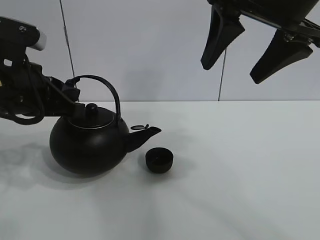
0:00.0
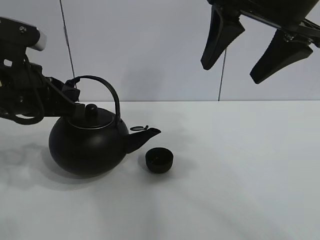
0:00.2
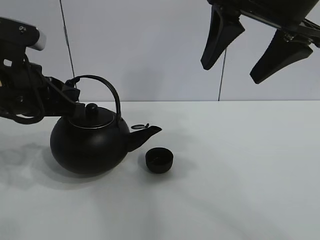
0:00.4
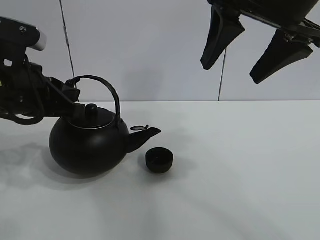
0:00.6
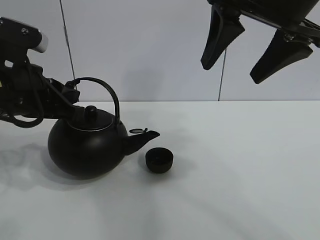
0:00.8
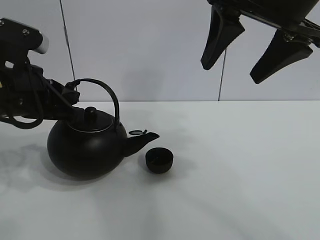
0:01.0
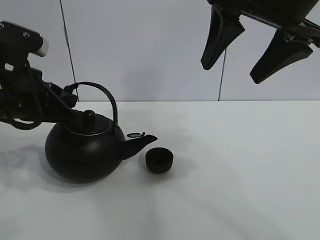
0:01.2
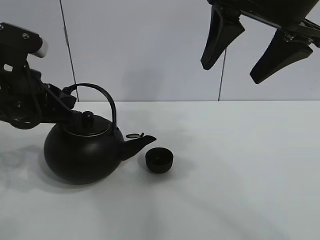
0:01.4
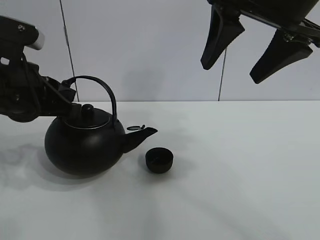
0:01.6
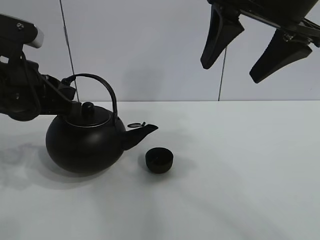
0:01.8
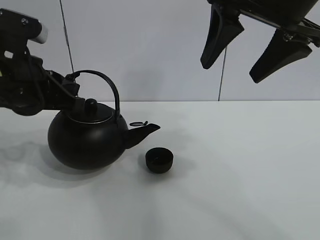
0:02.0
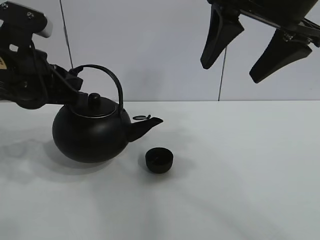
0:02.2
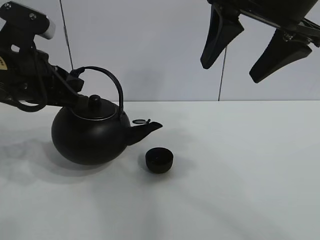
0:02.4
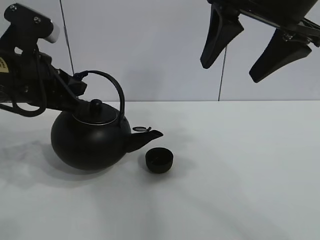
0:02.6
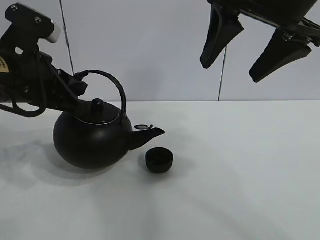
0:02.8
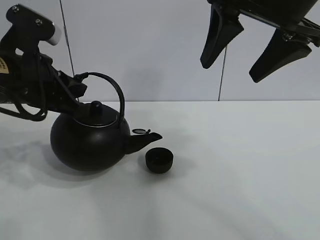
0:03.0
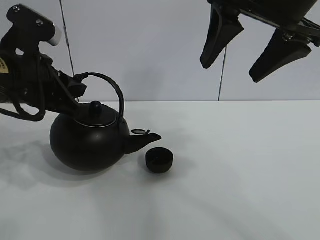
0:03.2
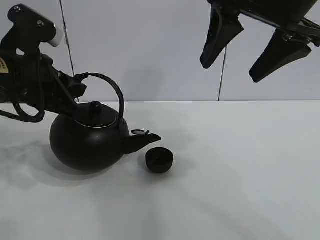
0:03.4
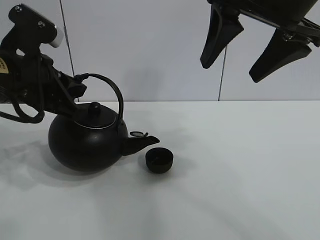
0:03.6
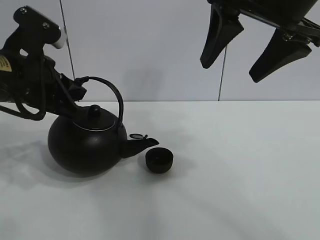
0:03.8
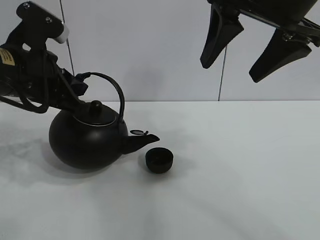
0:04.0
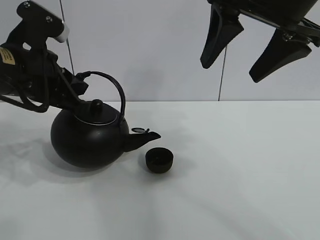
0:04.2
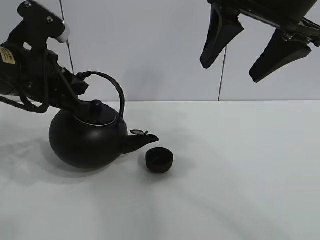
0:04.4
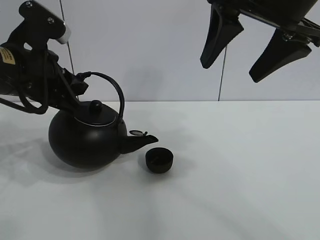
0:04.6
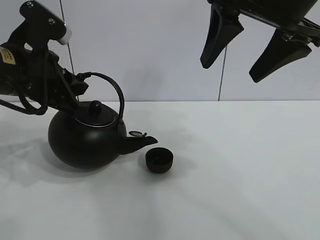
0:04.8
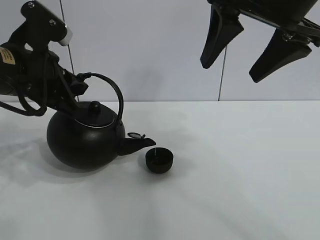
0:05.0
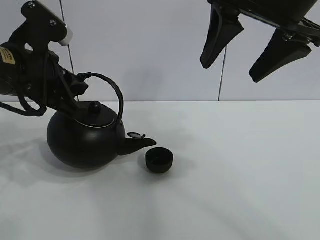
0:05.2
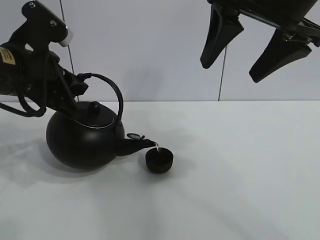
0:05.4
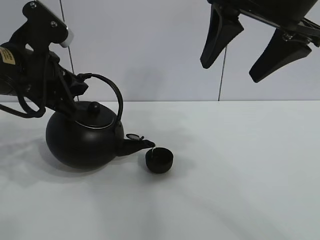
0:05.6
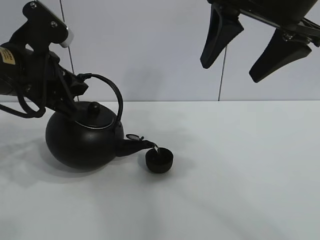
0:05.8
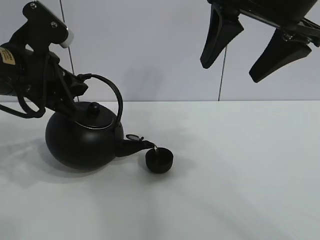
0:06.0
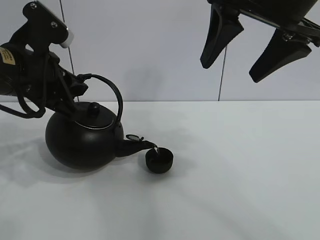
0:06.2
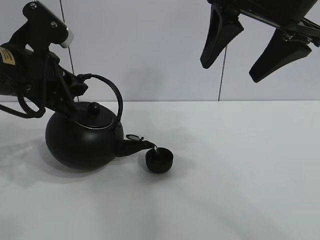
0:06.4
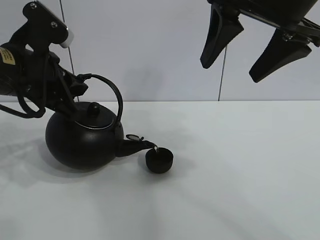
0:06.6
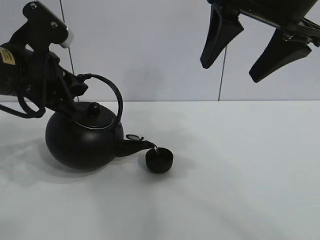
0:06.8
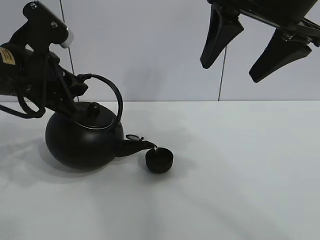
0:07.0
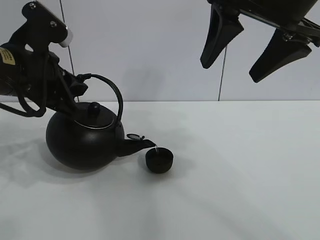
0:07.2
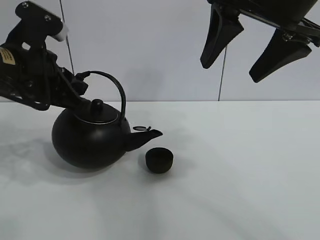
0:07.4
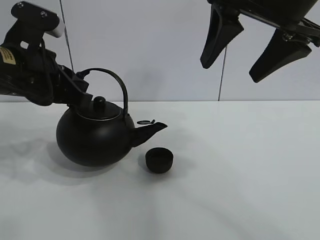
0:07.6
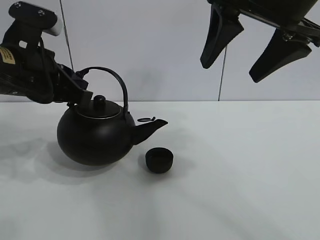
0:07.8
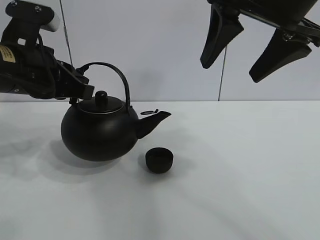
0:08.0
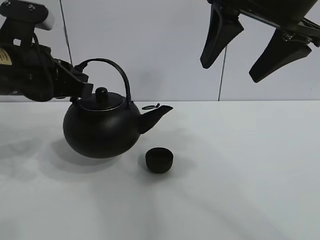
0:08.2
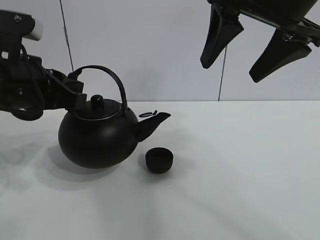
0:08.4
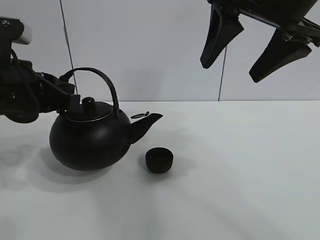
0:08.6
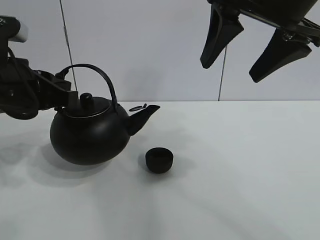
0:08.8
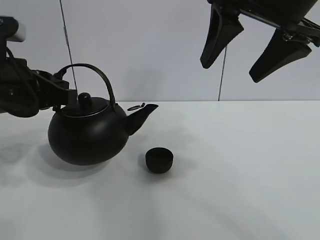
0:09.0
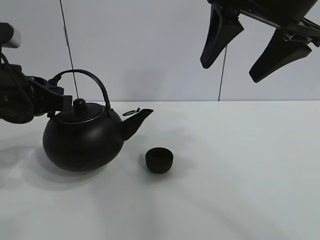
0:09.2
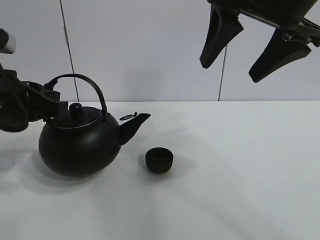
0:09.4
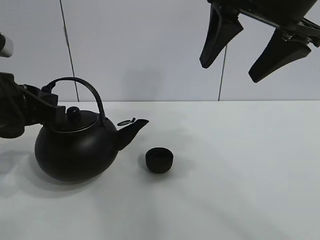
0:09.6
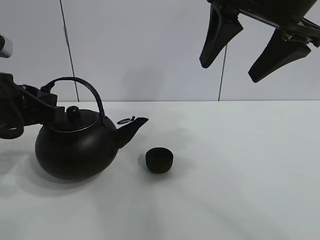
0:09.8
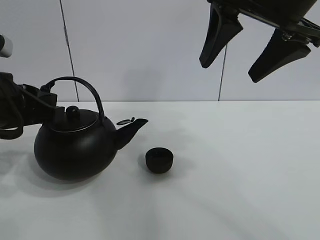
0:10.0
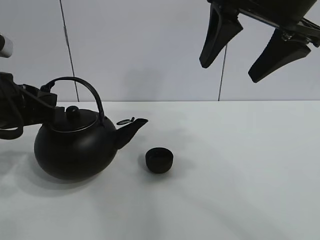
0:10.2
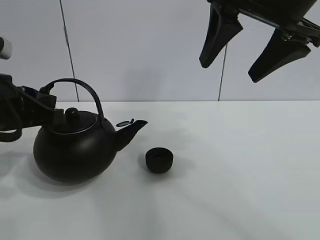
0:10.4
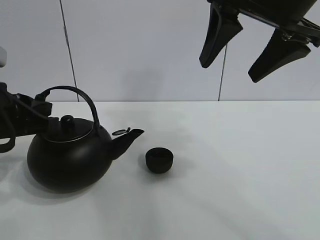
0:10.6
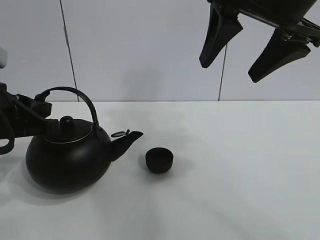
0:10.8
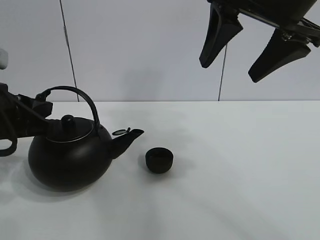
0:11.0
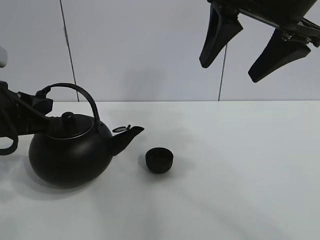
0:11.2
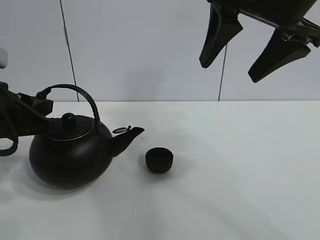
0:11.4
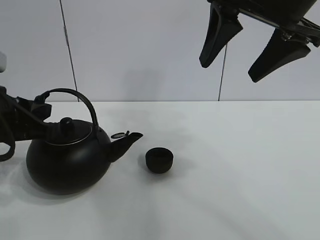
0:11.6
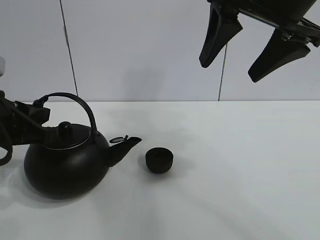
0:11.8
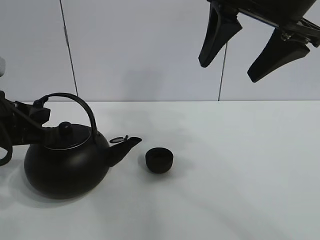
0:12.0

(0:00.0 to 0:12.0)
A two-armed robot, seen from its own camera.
Task of the whole recording: pour tea into the teacup.
Step, 0:00.0 - 0:07.4: Pour tea into the teacup with the left gripper.
0:00.0 - 0:01.6: The two grippers keep their place.
0:01.6 - 0:04.4: The grippers move only a little.
0:04.4 - 0:07.6: The grippers stay close to where they were, moving slightly.
0:07.6 - 0:09.0: The grippers stay close to where they were, moving slightly.
0:09.0 - 0:12.0: The grippers move only a little.

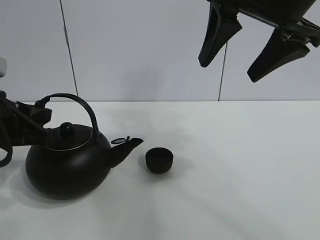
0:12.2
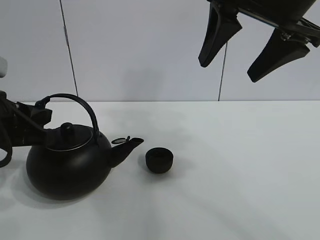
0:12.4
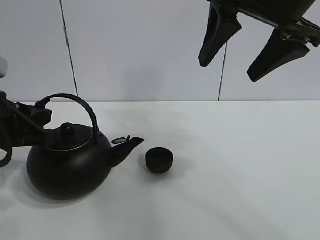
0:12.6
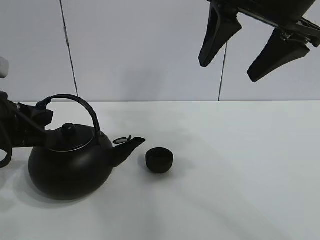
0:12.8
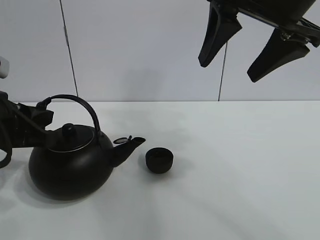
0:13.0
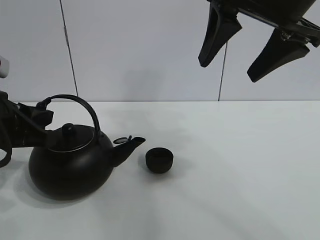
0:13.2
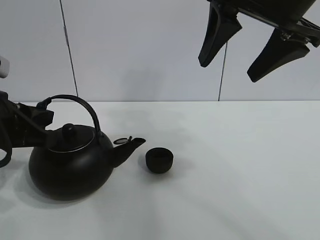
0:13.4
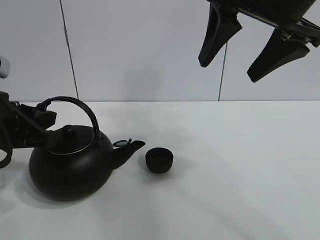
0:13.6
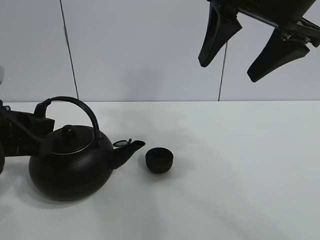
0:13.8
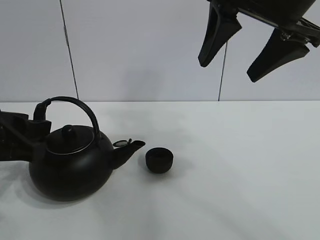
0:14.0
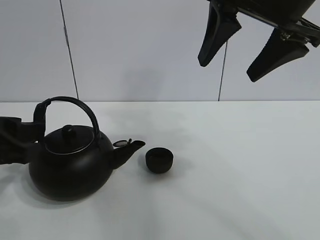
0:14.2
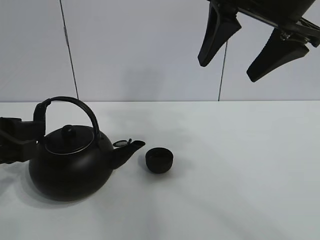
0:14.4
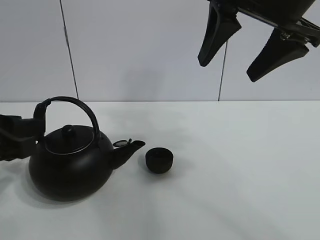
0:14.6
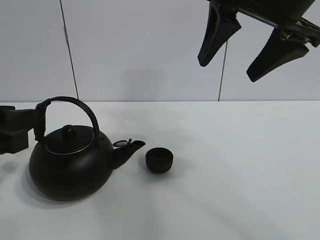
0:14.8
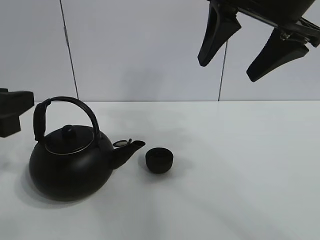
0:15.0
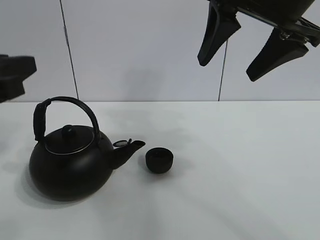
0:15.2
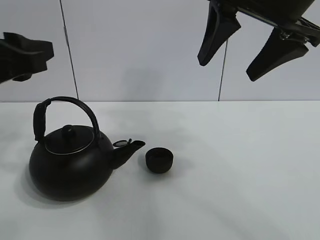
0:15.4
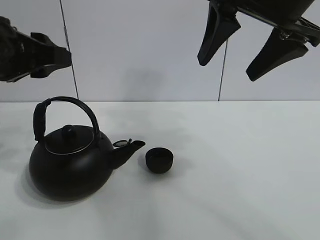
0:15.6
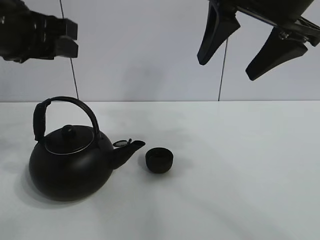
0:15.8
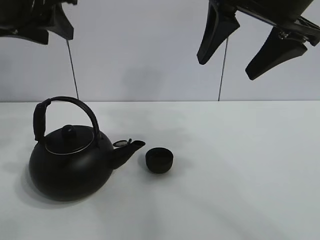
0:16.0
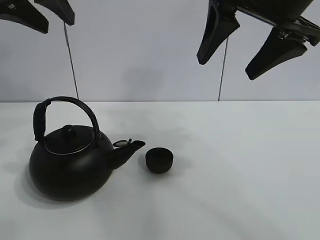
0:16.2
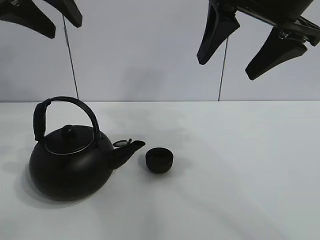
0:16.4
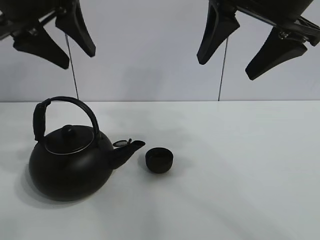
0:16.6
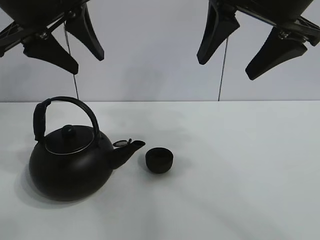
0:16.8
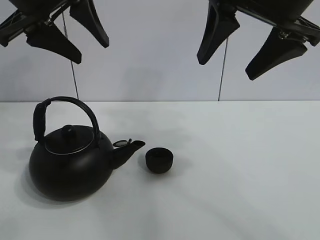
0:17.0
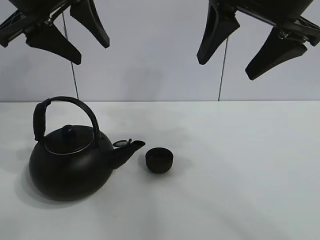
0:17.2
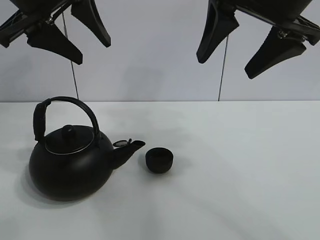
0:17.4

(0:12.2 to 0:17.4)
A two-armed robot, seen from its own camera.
Task of the whole recording: pour tea into the teacup.
0:12.2 - 0:14.0: The left gripper opens.
0:14.0 - 0:15.6: The left gripper moves upward, about 10 cm.
0:15.6 - 0:17.4: The left gripper shifts roughly 10 cm upward and to the right.

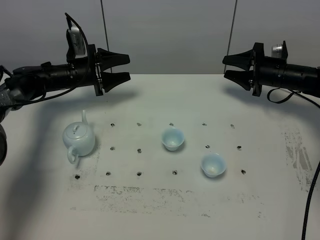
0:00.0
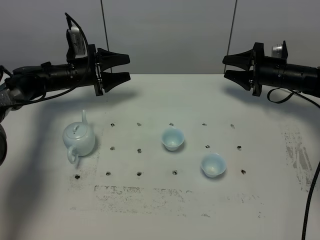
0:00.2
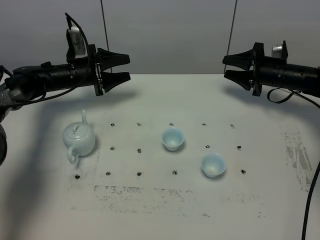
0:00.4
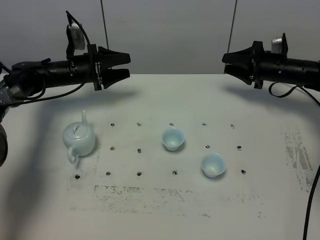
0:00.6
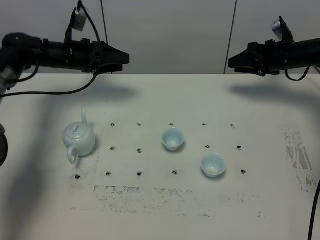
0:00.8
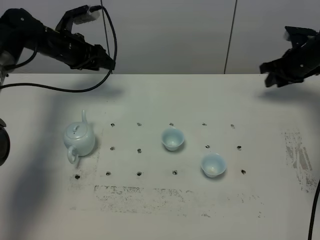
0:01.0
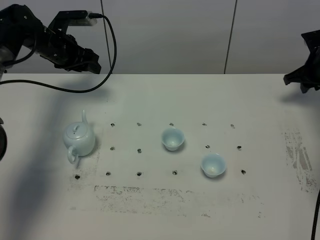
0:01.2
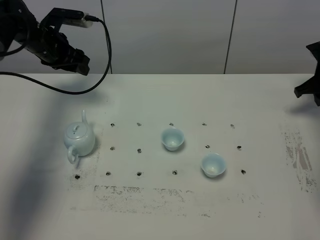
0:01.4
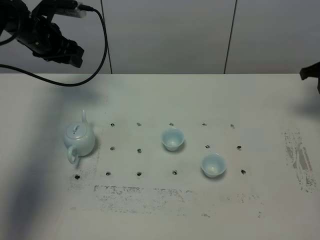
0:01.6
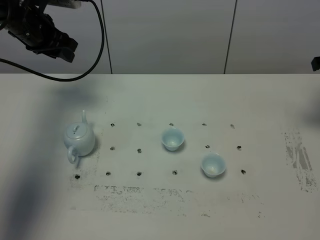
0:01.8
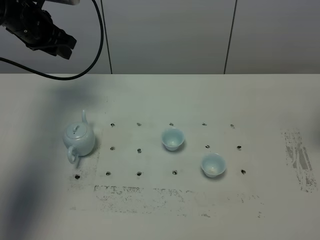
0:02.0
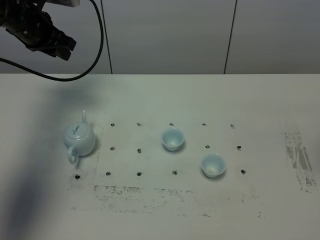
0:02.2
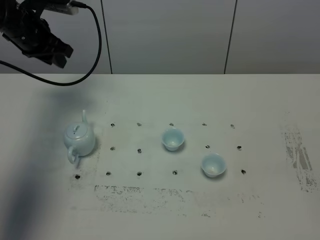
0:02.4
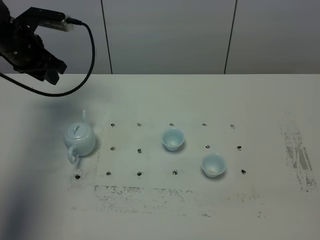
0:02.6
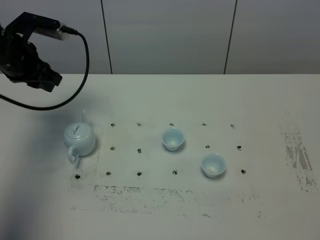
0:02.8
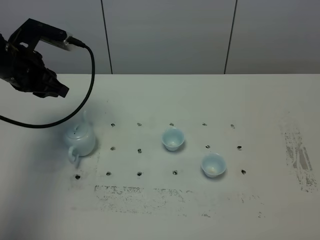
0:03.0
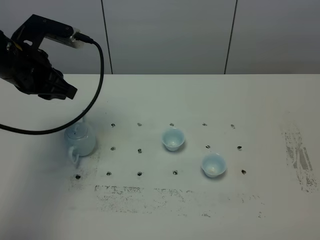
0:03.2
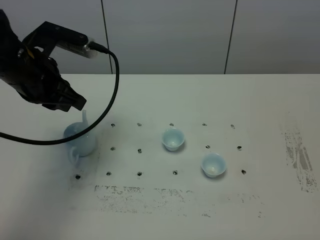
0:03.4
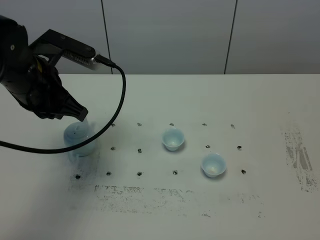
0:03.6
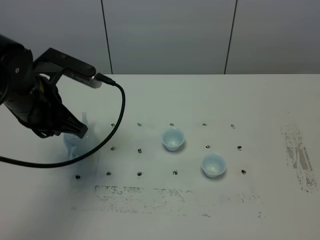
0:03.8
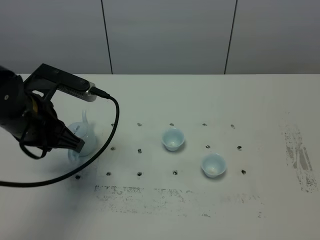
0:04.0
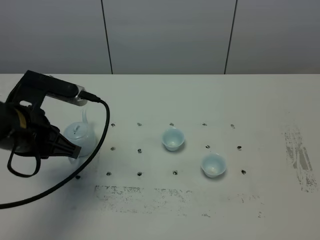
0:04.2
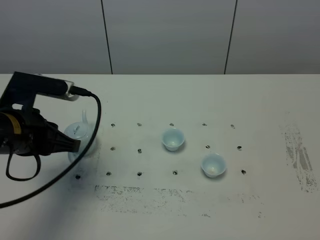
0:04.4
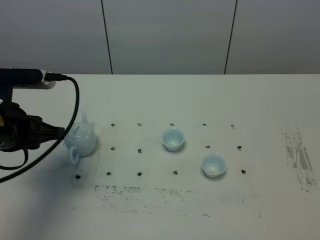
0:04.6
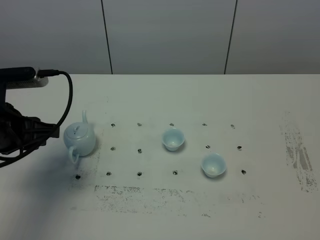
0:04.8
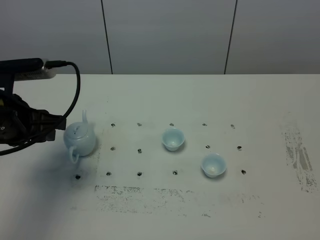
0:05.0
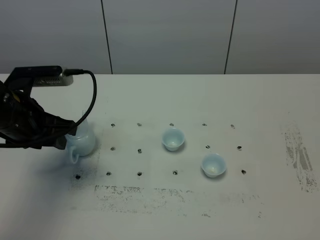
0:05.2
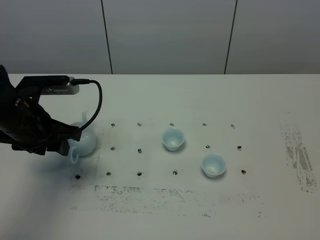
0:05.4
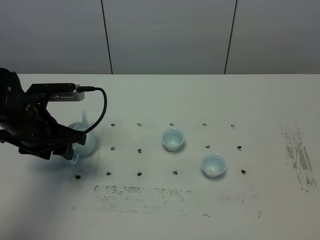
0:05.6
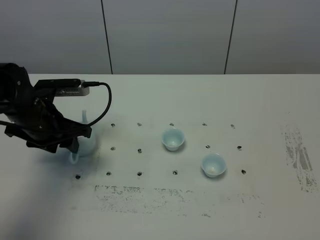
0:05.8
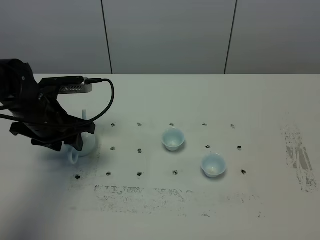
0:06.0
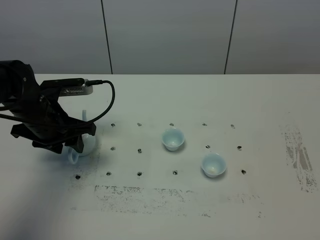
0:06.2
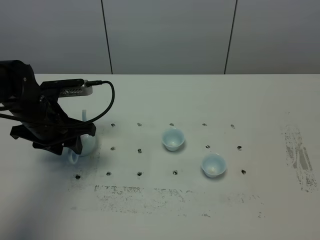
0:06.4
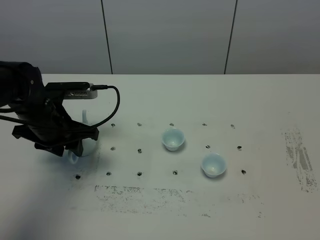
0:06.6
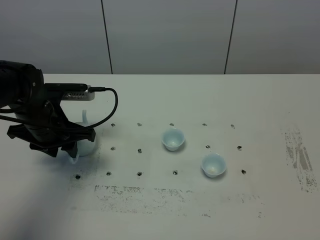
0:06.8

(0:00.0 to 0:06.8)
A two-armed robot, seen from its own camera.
Task of the whole recording: grasp the blue porcelain teapot and pour the tea into the two blue porcelain teacups one by one, put the blue porcelain teapot back in its original place.
0:00.0 - 0:01.4: The right gripper goes about 10 cm to the right and upward. Meanwhile the left gripper is displaced upward by some 10 cm.
0:01.4 - 0:02.8: The right gripper moves backward and upward, some 50 cm, and closes its fingers. Meanwhile the left gripper is displaced backward by some 10 cm, and closes.
0:02.8 - 0:04.0: The left gripper travels backward and to the right by roughly 15 cm.
0:04.0 - 0:05.4: The left gripper changes place by approximately 5 cm, and opens its fingers.
0:05.4 - 0:06.8: The left gripper moves roughly 5 cm.
